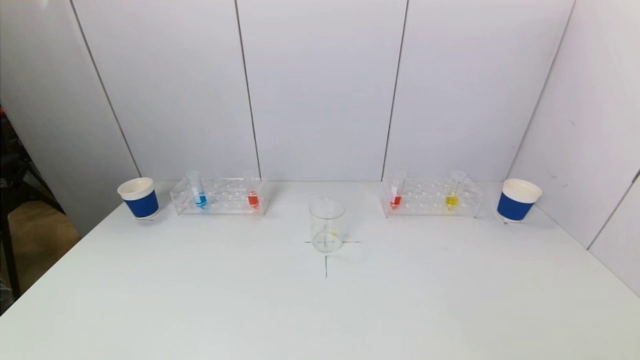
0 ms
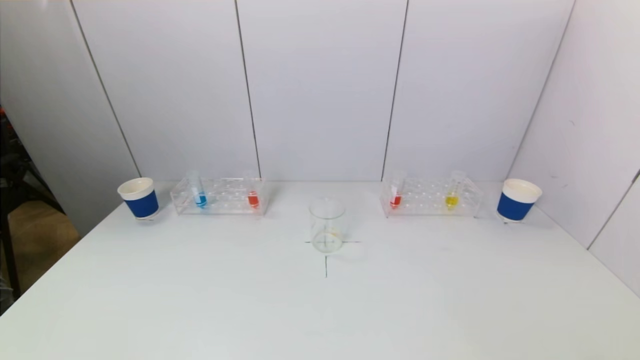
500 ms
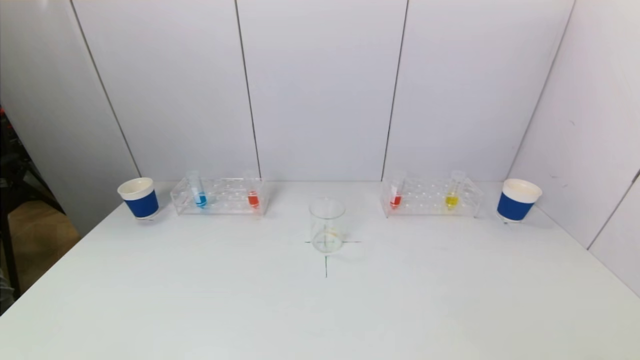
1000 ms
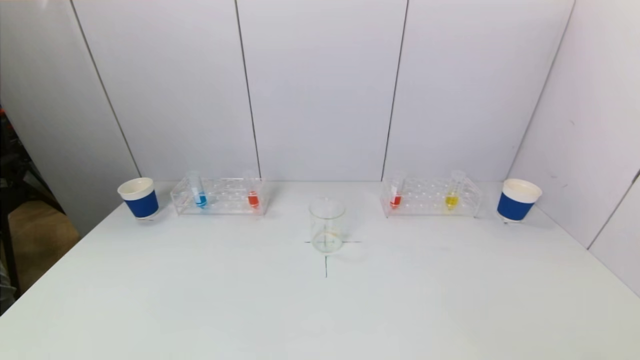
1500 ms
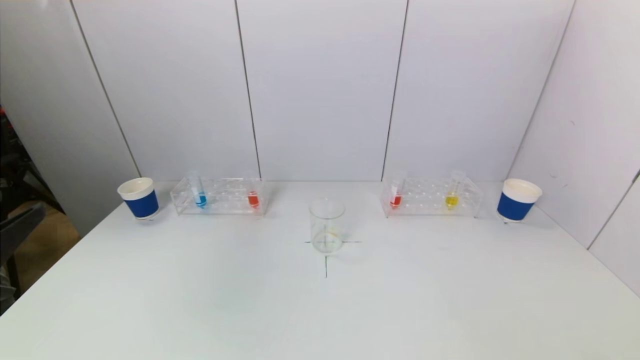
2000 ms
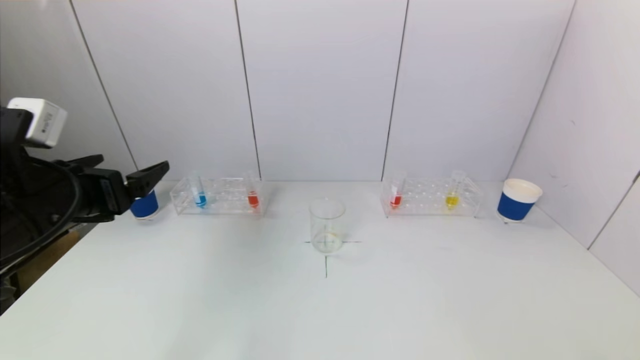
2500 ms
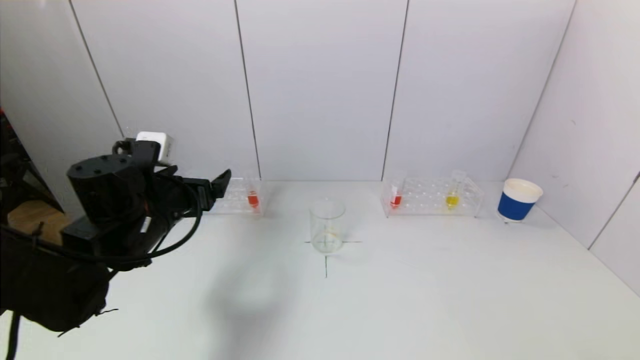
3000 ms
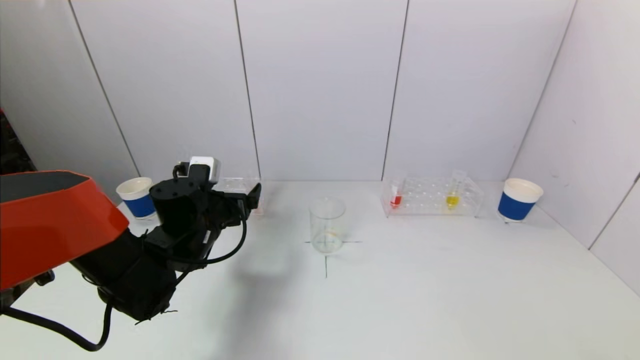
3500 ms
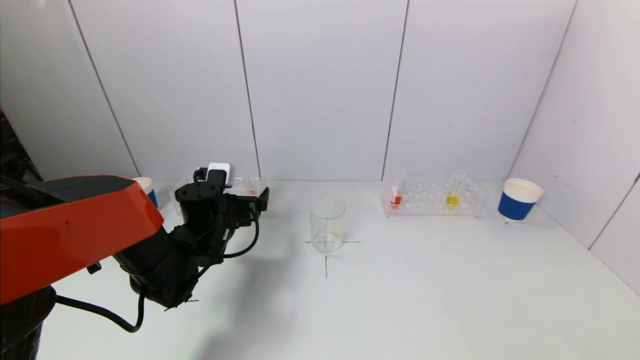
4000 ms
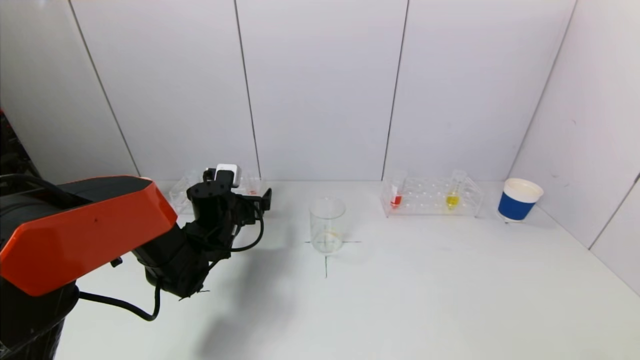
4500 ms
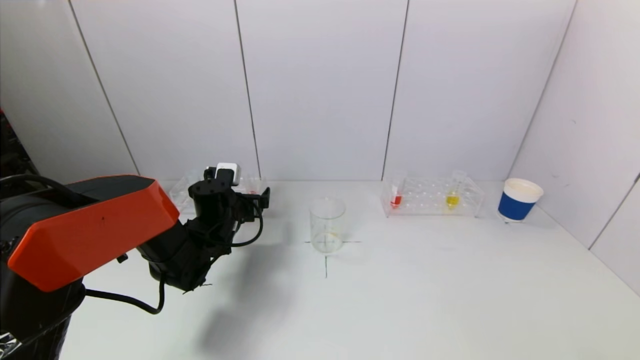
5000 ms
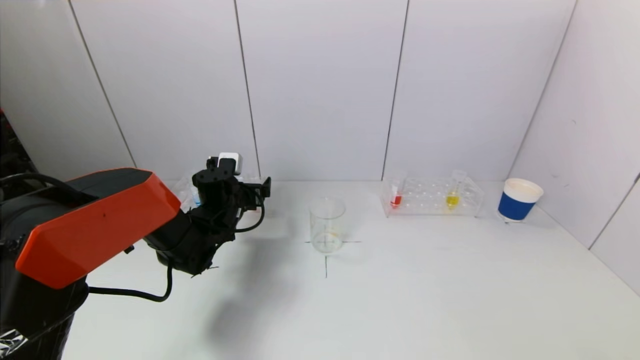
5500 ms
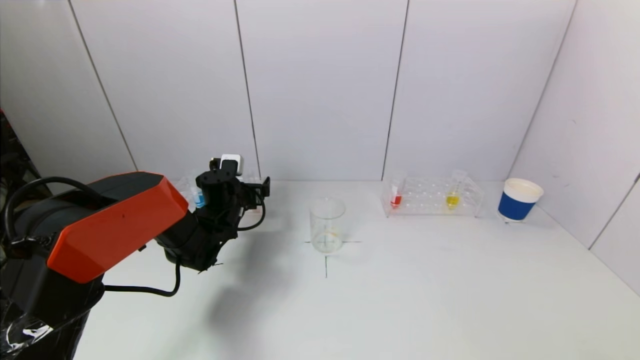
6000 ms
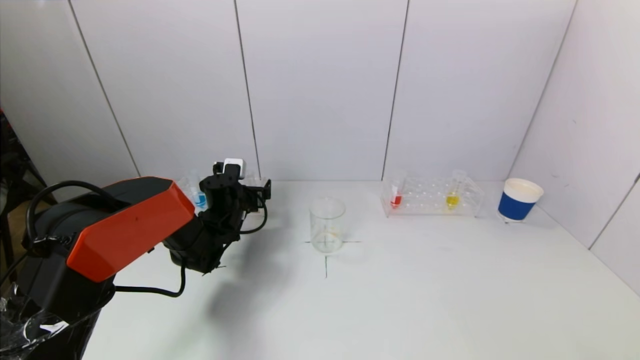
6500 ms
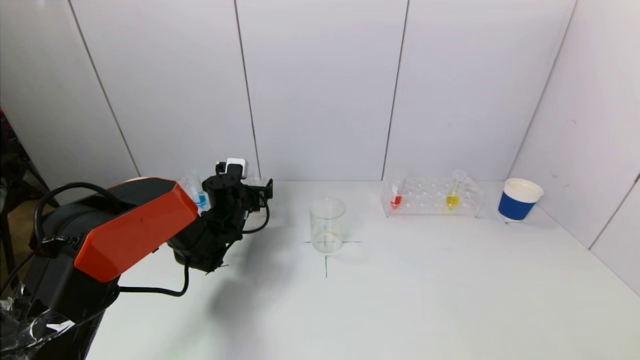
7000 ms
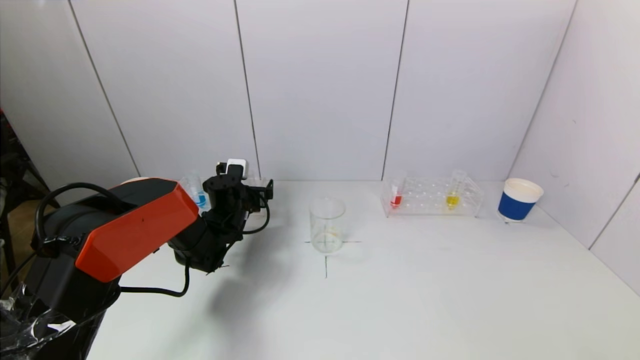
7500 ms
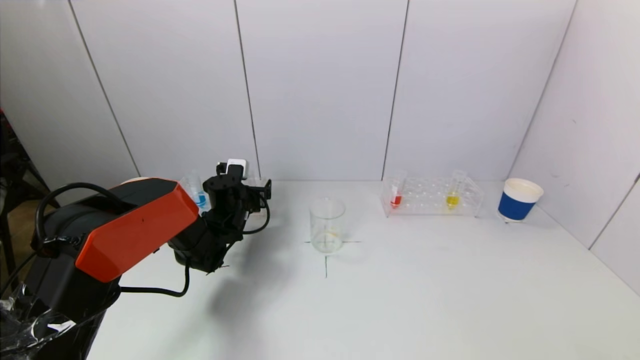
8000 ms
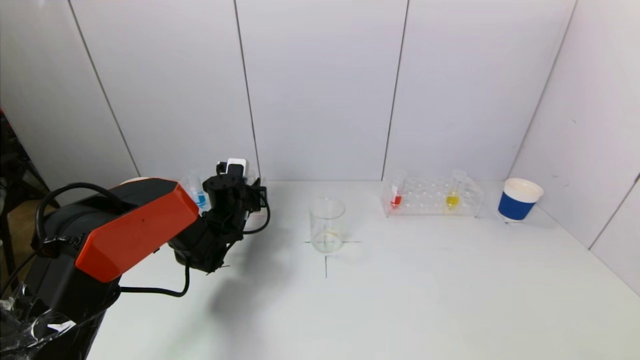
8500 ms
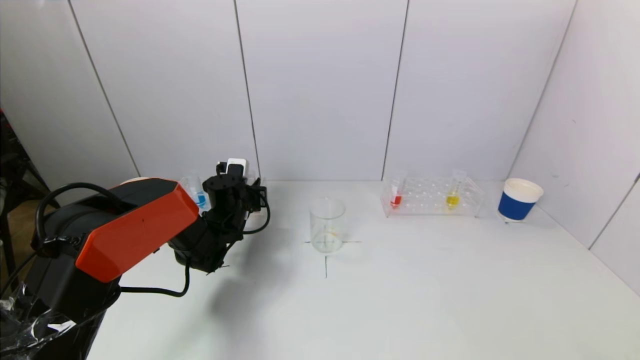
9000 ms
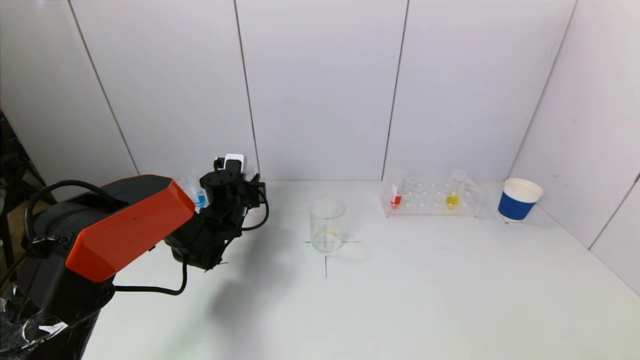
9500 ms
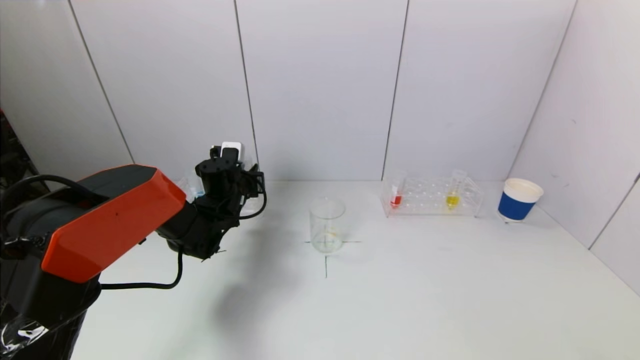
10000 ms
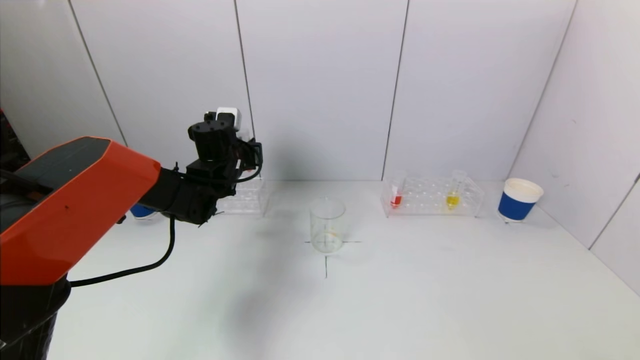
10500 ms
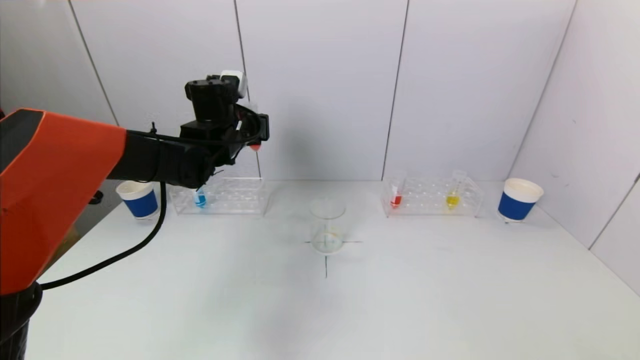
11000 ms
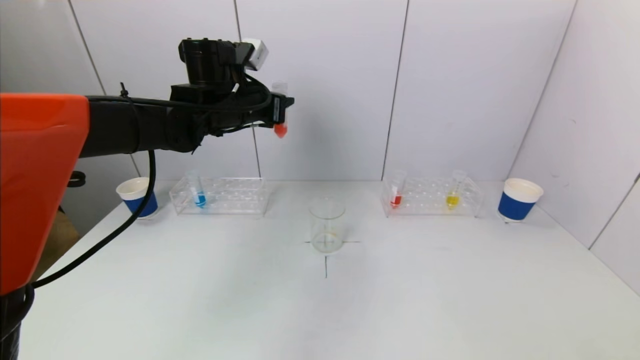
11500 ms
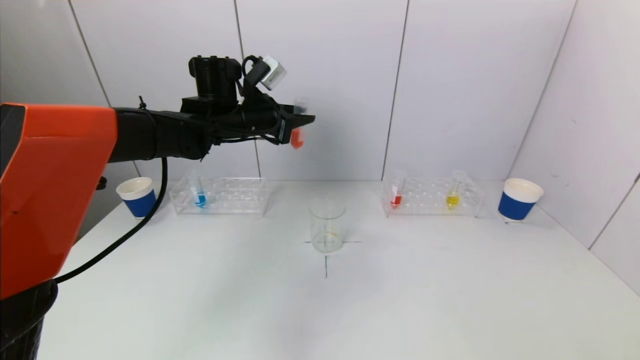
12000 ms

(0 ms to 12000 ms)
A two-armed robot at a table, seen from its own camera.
Task of the whole recording: pick up a test tube with pigment on left test tube rack and a test tube with pigment on right test tube rack by grippers and pour them into the beaker.
Step, 0 ms - 8500 ms: Grasp the red reagent with the left gripper.
2000 ms - 4000 ms: The left gripper is displaced forward, downward and to the right by some 35 cm.
4000 ms - 6000 ms: The left gripper goes roughly 5 cm forward.
6000 ms - 8000 ms: There are only small adjustments of the grippers.
8000 ms - 10000 ms: The left gripper closes up.
10000 ms - 12000 ms: The left gripper shifts approximately 15 cm upward.

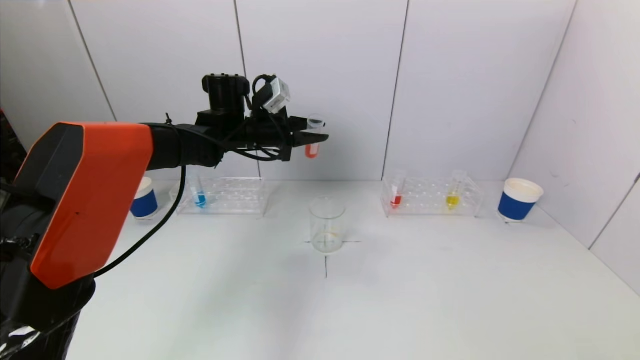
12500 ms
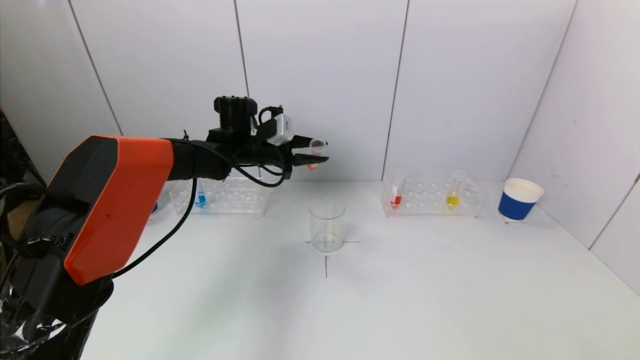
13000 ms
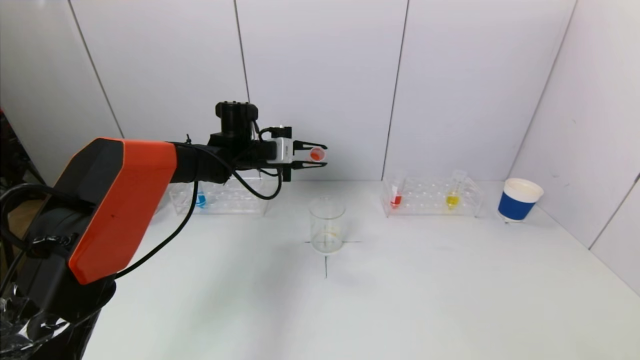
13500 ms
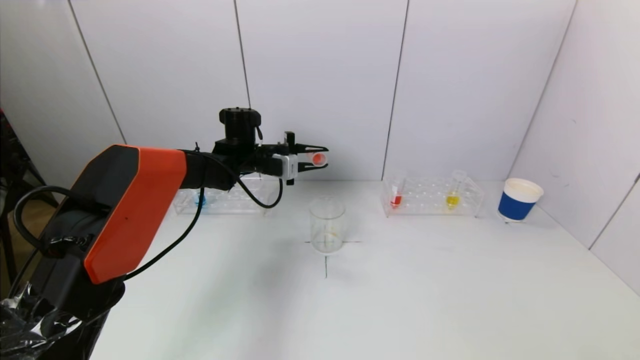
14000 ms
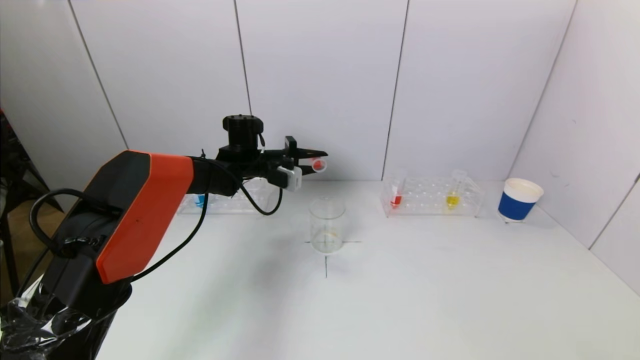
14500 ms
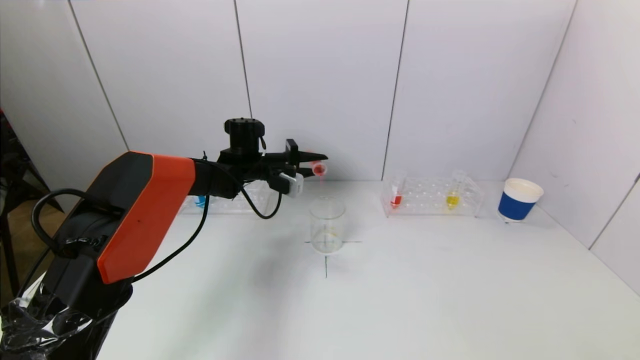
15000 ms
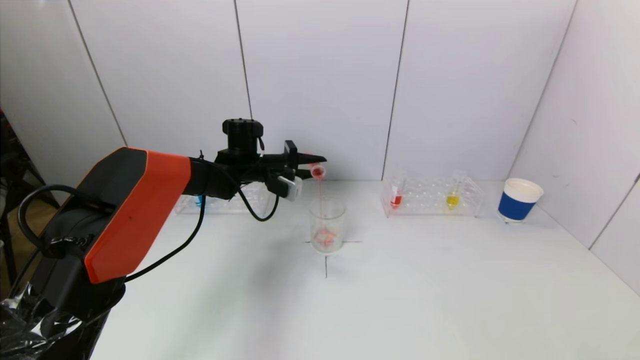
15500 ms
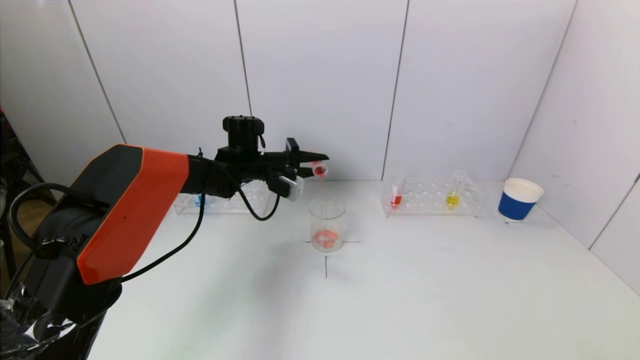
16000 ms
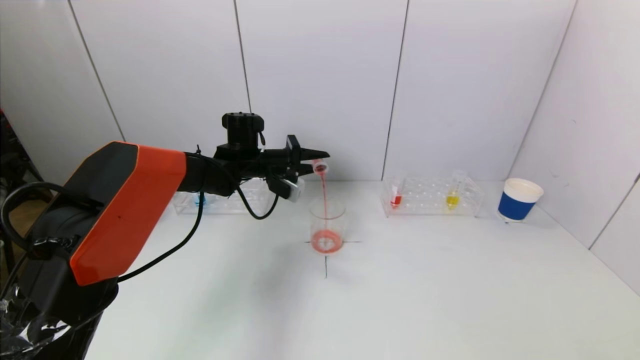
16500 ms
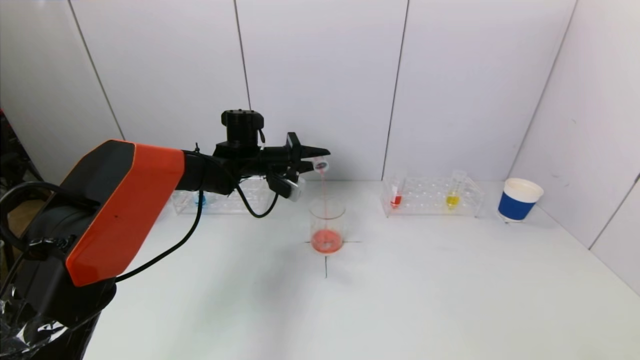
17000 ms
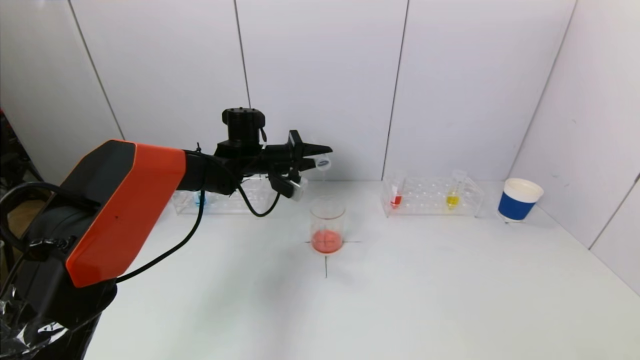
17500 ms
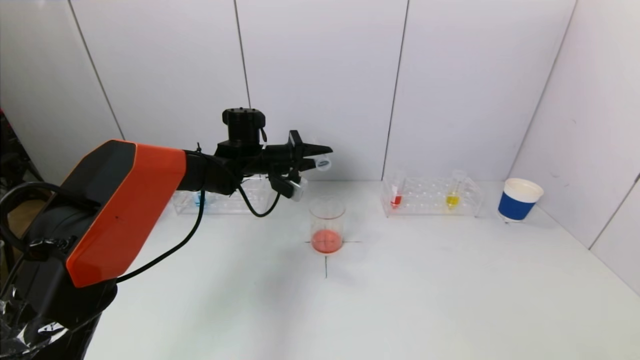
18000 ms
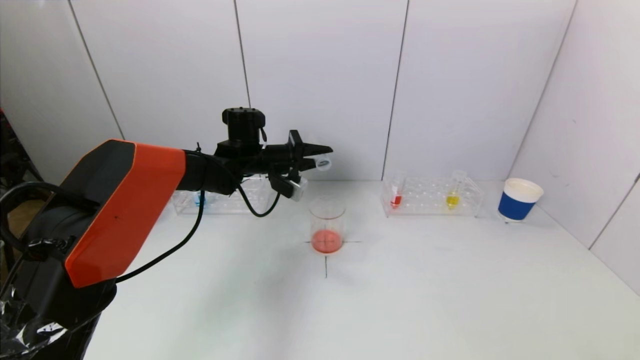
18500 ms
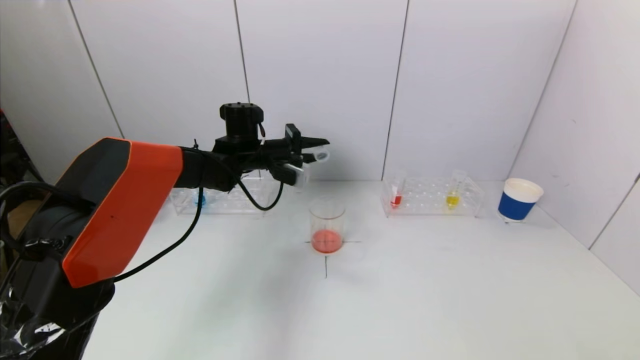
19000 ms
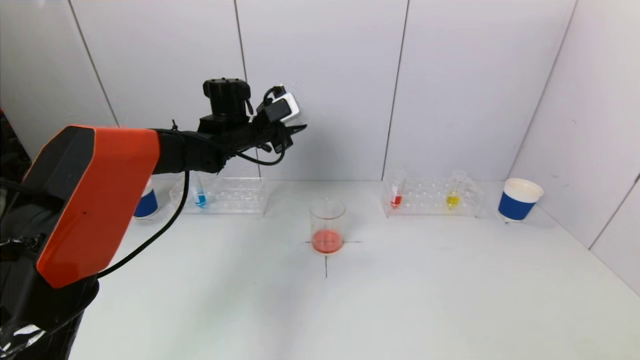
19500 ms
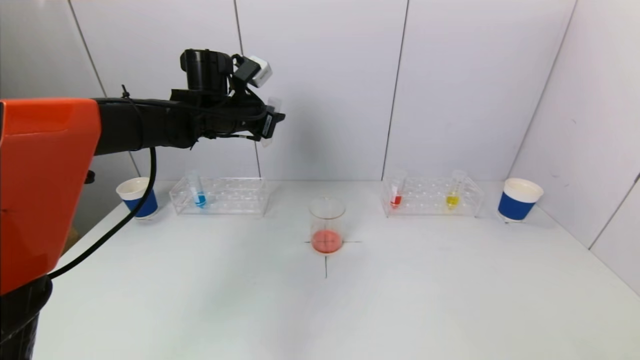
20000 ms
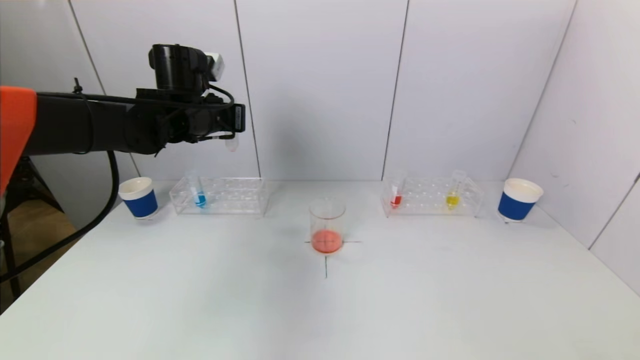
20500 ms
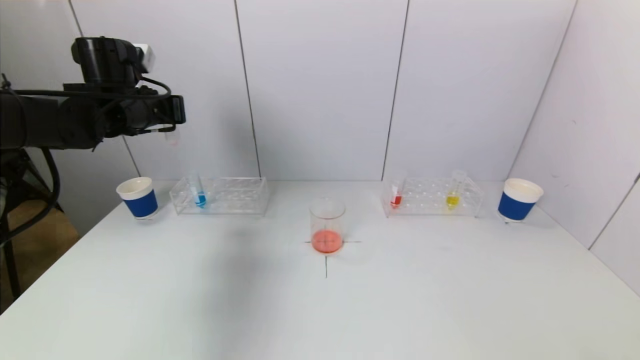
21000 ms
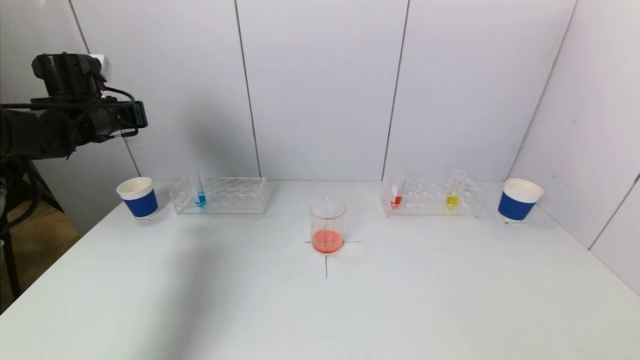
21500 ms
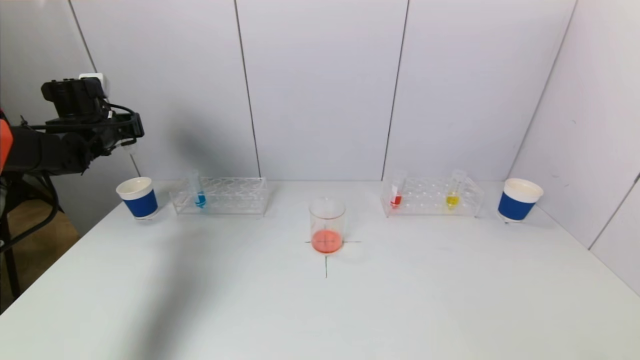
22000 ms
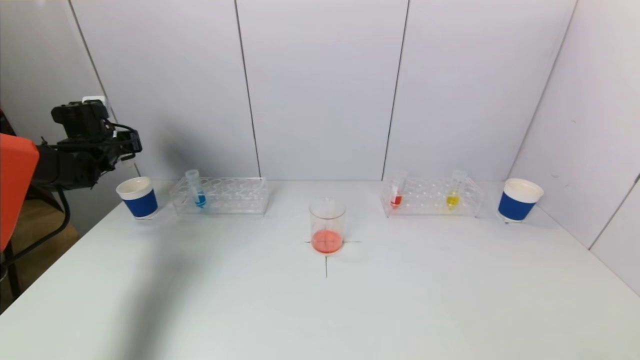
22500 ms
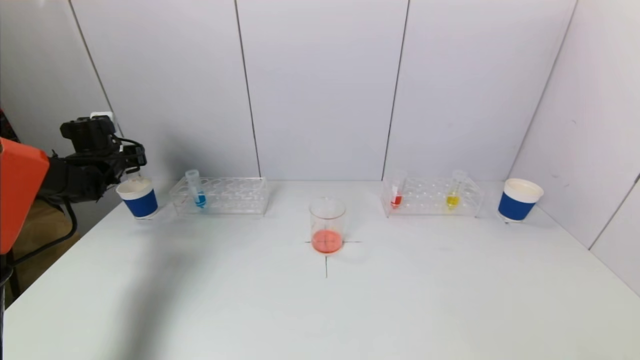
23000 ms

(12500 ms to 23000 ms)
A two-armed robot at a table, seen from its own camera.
Task of the whole recording: pick up a test tube with pigment on left test tube rack and a test tube with pigment on right test tube rack by grippers and pour them into the beaker.
Step, 12500 ms - 18500 ms: Pour the red reagent into the graduated cylinder with the left gripper.
12500 ms - 14500 ms: The left gripper goes about 10 cm downward.
14500 ms - 16500 ms: There are only small adjustments of the grippers.
16500 ms - 19000 ms: There are only small adjustments of the grippers.
19000 ms - 21000 ms: The left gripper goes approximately 20 cm to the left, upward and backward.
21000 ms - 23000 ms: The left gripper shifts about 20 cm to the left, downward and forward.
